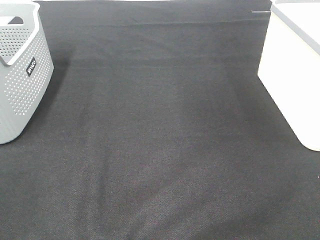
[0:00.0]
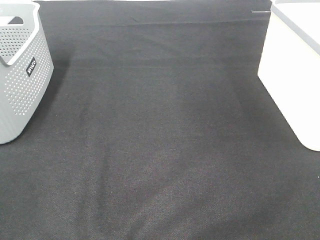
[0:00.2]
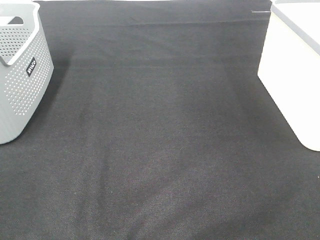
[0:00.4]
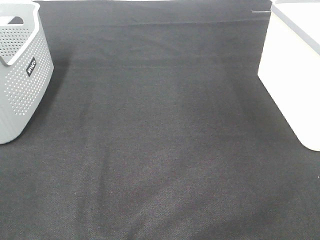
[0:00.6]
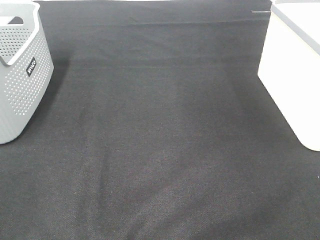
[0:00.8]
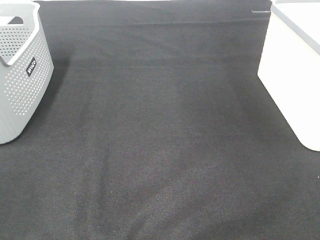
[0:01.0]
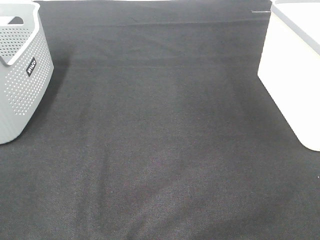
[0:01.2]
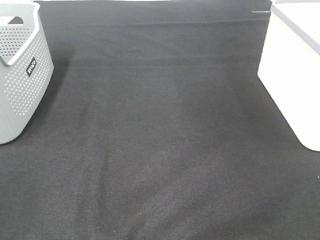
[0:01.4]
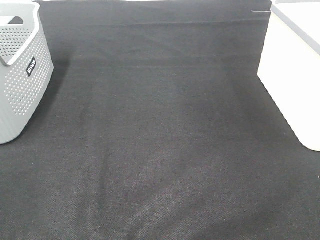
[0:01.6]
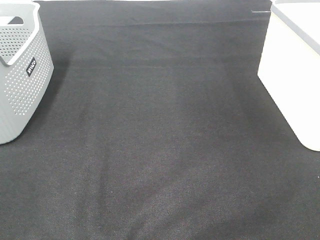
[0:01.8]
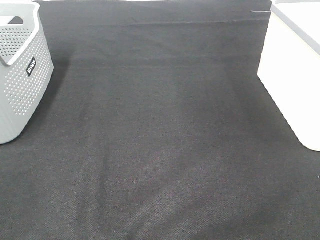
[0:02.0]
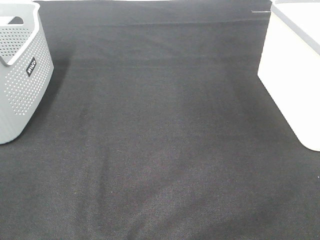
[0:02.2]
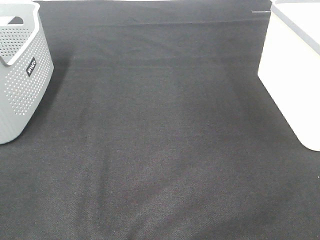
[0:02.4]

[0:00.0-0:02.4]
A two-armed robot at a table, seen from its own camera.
0:01.2 to 0:02.4: Both grippers stay about where they are.

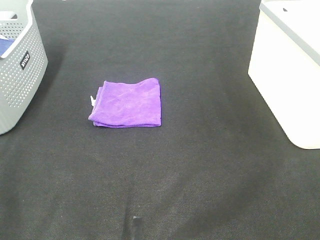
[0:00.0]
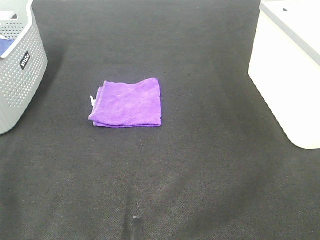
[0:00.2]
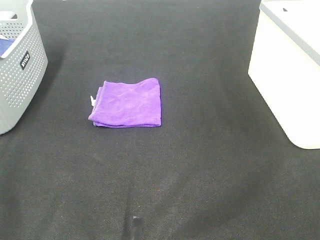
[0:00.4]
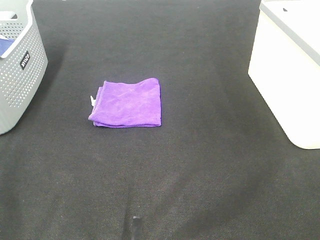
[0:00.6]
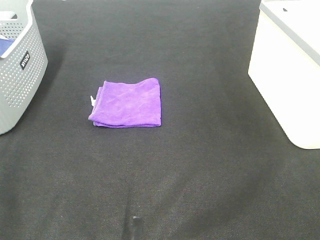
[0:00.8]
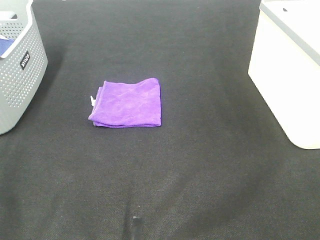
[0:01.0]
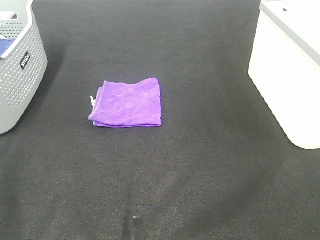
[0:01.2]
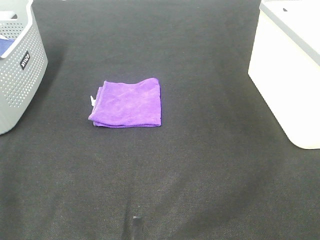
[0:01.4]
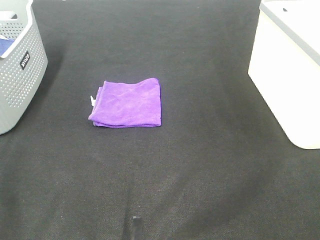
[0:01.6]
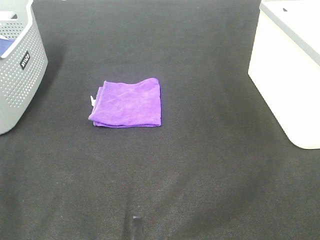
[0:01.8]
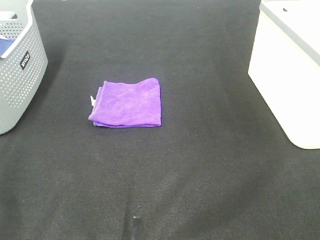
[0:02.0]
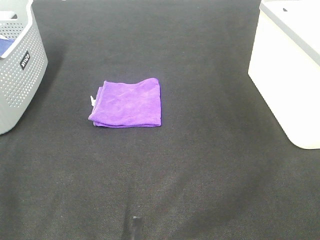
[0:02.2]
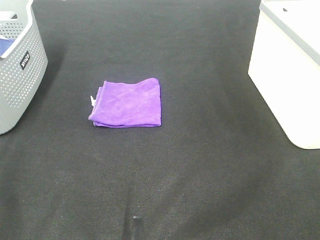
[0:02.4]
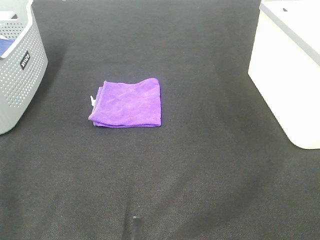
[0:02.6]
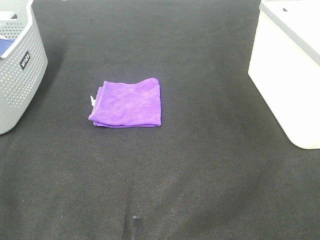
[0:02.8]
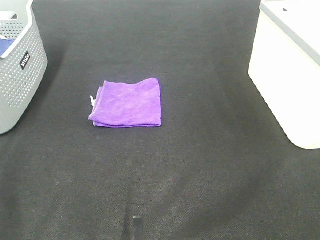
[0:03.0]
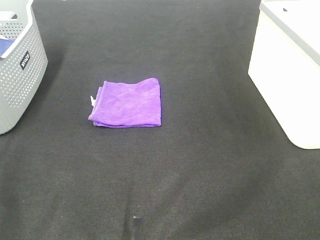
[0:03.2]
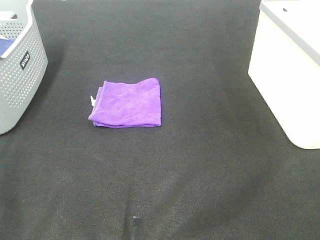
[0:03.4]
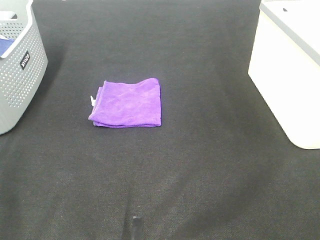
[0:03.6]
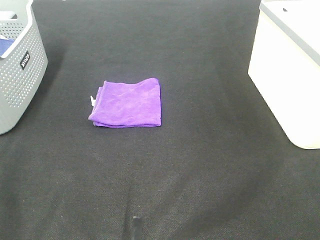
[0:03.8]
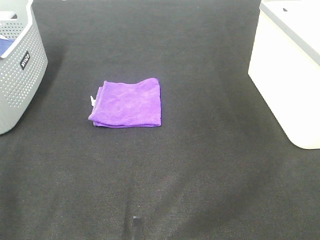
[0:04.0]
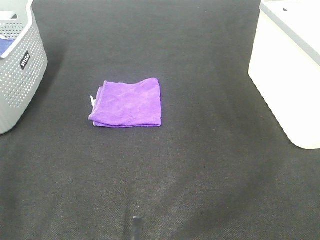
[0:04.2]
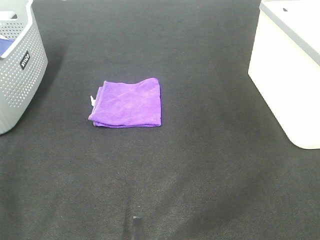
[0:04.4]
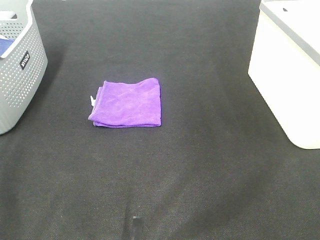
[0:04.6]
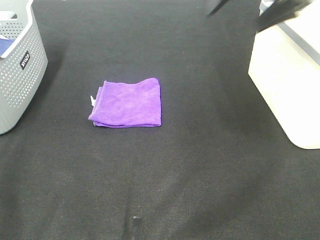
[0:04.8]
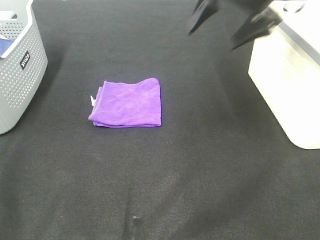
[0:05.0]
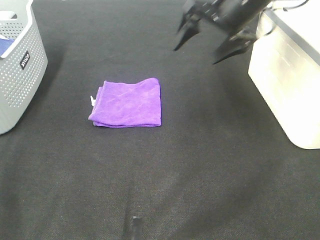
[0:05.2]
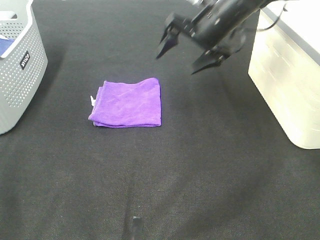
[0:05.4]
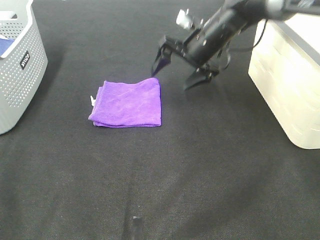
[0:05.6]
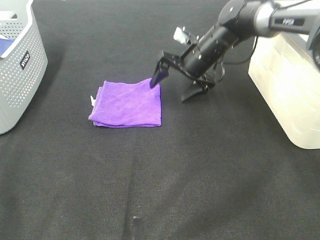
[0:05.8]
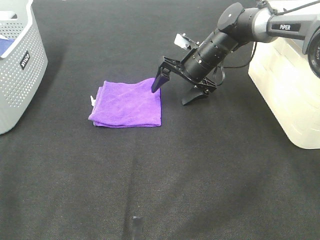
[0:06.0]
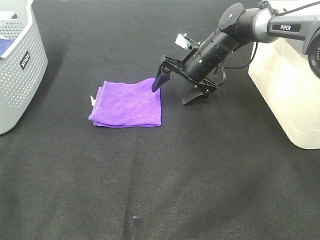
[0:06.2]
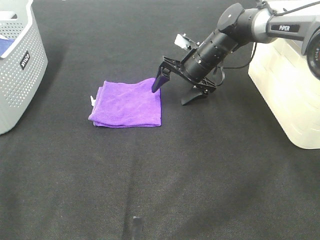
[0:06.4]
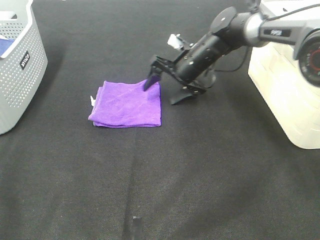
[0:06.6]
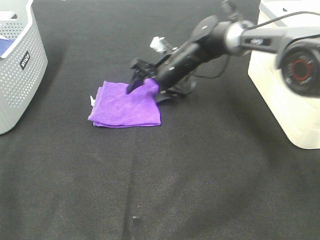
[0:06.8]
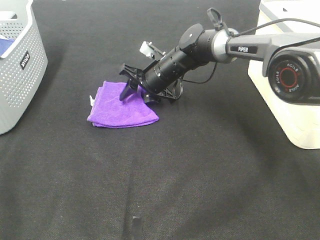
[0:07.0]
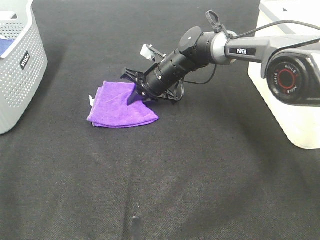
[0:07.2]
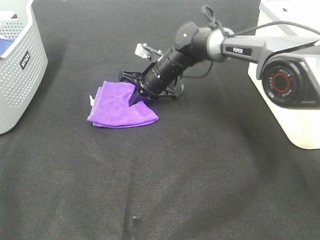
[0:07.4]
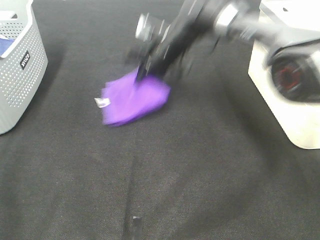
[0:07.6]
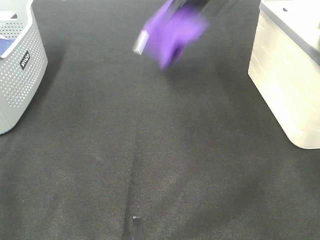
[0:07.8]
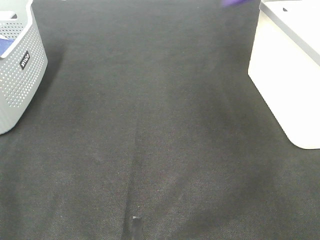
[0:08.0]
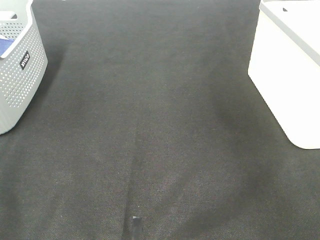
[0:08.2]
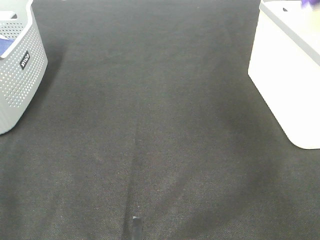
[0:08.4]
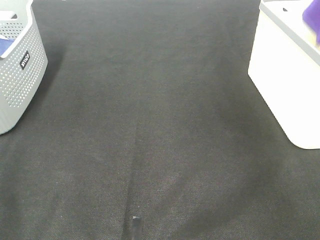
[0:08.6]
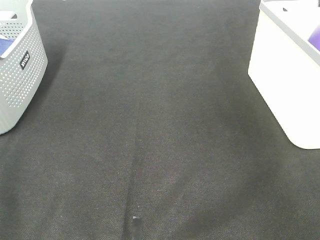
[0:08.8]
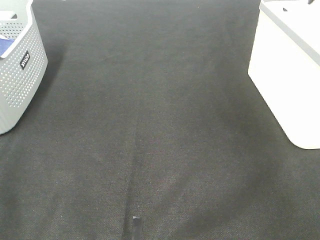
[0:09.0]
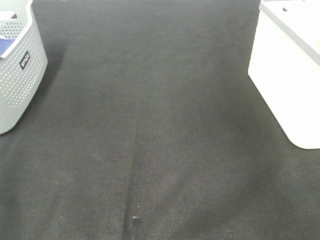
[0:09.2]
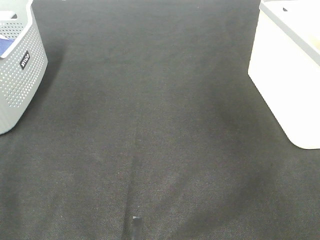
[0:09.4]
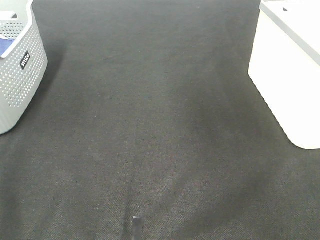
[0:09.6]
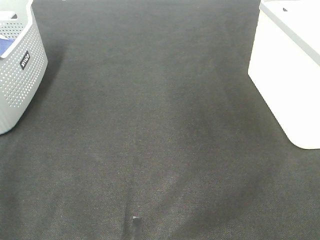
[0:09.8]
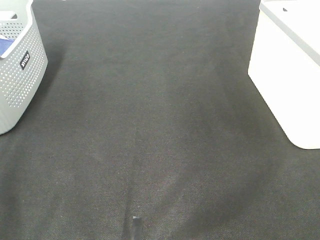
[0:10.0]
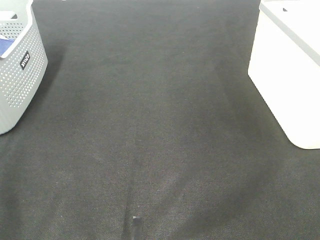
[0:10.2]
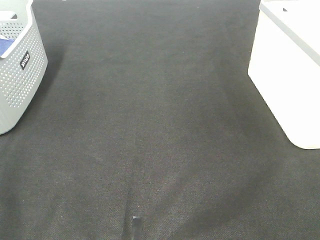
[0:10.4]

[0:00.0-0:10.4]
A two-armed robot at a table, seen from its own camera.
Step, 0:00.0 to 0:07.2: Right hand: grab the folded purple towel.
Step, 0:07.4 to 0:08.8: Right hand: place the purple towel in right basket.
0:00.0 to 0:03.0: The two grippers keep their place.
0:04.4 to 0:06.0: The right gripper shifts about 40 cm downward, forward and to the left.
0:06.0 to 0:07.4: The right gripper goes approximately 10 cm to the left, and closes.
0:07.4 to 0:09.0: The right gripper moves to the right and upward, about 40 cm, and opens up.

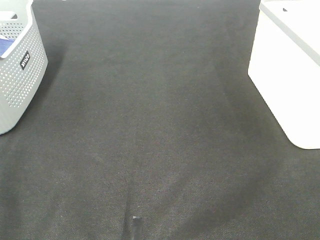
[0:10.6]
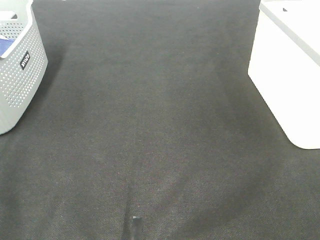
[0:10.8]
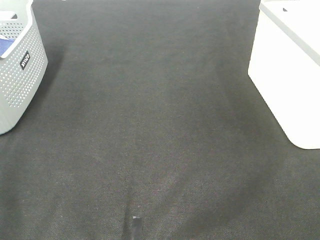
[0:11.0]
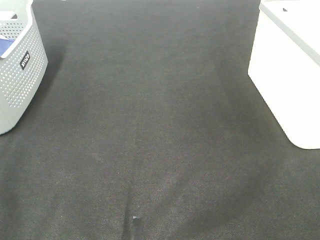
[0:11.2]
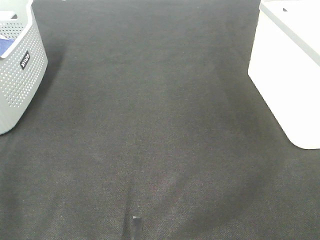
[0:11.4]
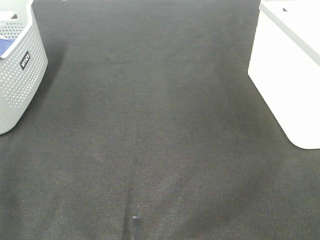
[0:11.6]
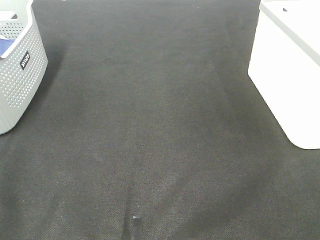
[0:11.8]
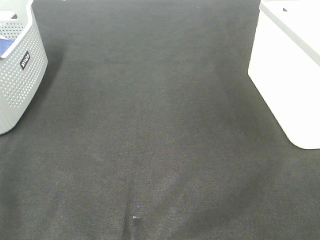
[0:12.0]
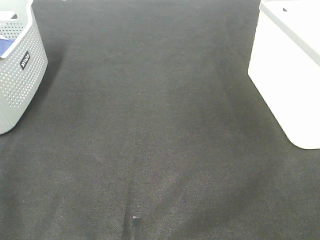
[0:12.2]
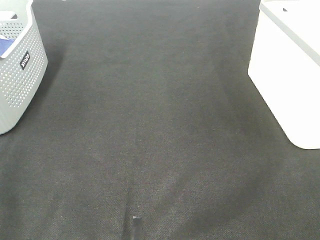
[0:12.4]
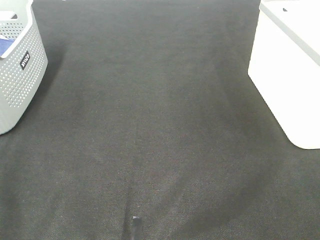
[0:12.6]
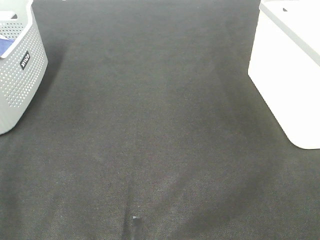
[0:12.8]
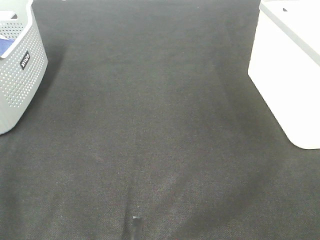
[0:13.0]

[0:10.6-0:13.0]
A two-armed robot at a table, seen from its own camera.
0:11.8 to 0:13.0: Both grippers stay about where they are.

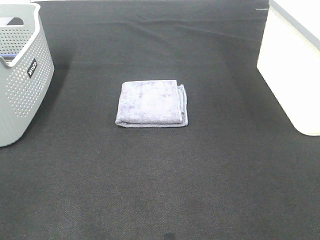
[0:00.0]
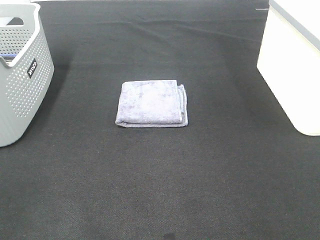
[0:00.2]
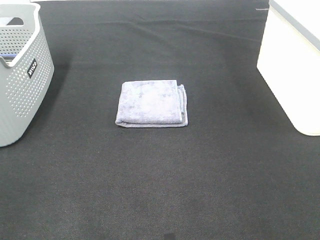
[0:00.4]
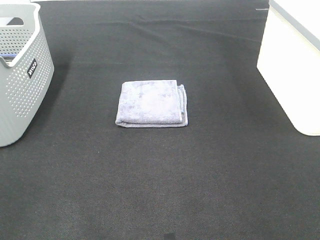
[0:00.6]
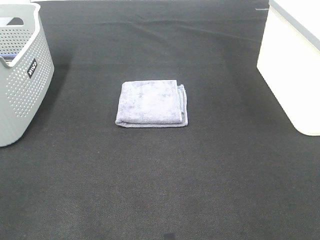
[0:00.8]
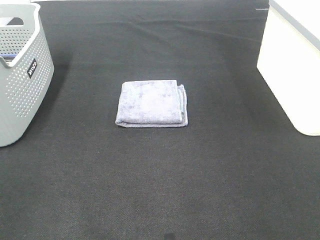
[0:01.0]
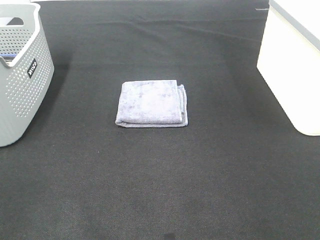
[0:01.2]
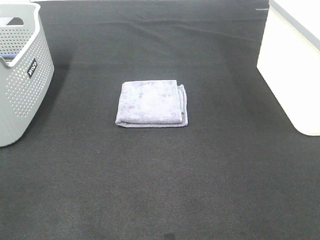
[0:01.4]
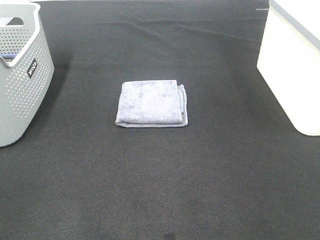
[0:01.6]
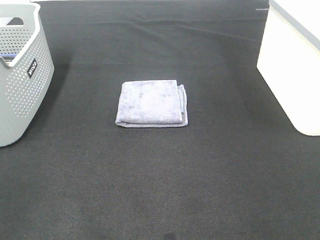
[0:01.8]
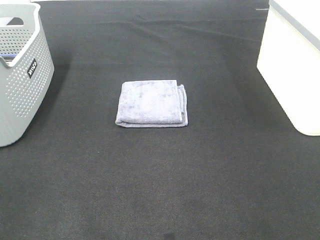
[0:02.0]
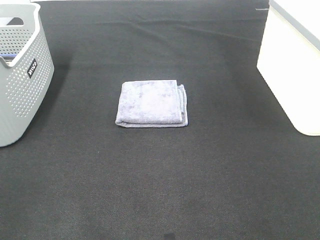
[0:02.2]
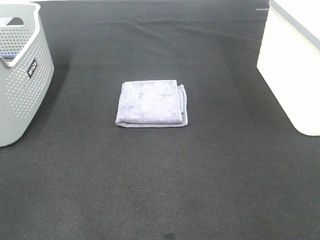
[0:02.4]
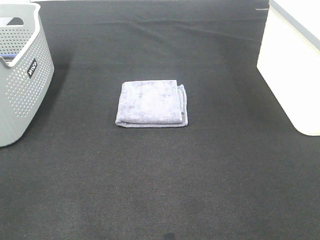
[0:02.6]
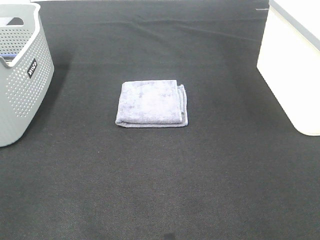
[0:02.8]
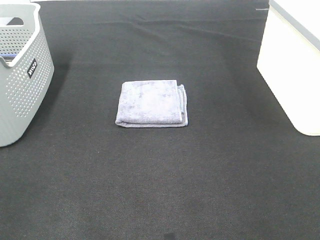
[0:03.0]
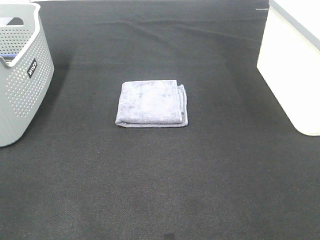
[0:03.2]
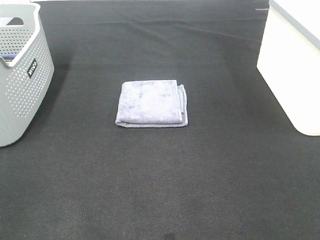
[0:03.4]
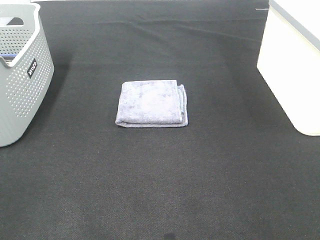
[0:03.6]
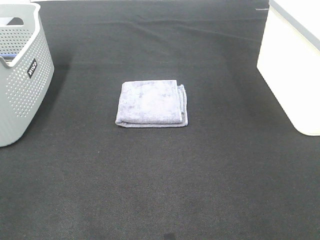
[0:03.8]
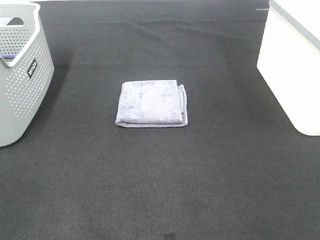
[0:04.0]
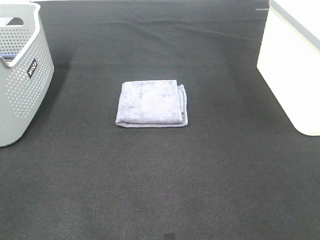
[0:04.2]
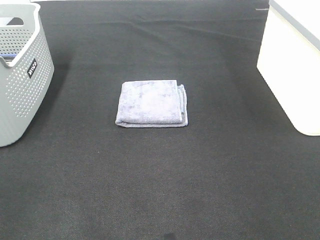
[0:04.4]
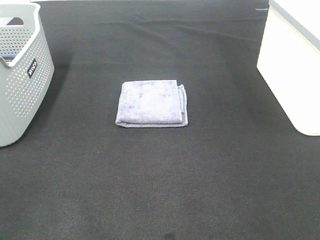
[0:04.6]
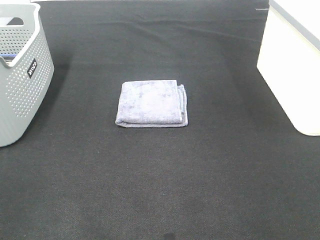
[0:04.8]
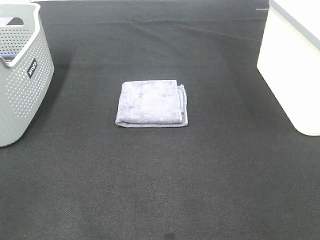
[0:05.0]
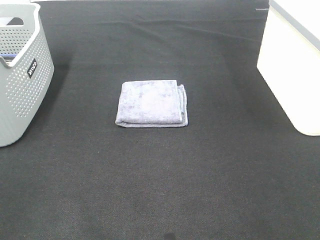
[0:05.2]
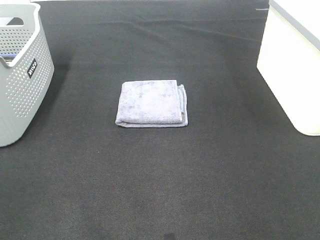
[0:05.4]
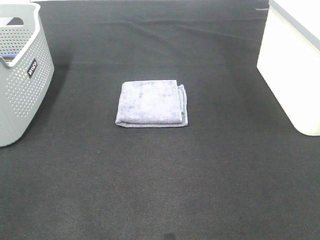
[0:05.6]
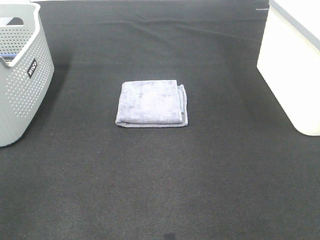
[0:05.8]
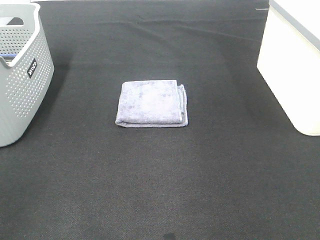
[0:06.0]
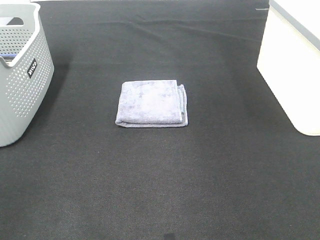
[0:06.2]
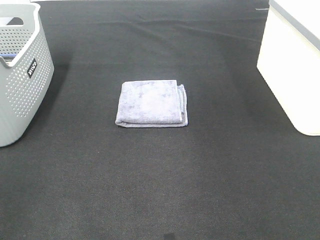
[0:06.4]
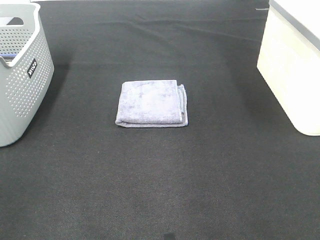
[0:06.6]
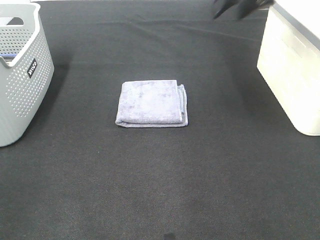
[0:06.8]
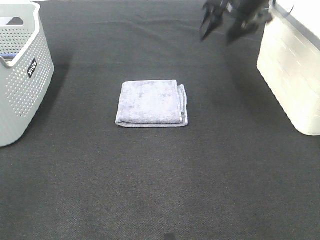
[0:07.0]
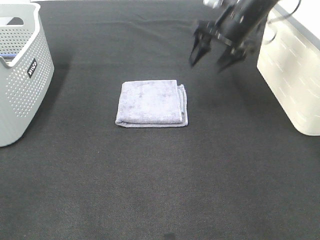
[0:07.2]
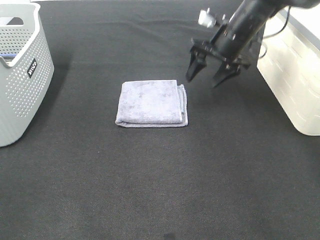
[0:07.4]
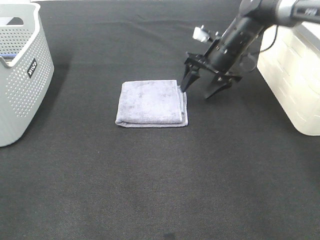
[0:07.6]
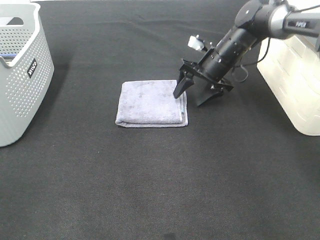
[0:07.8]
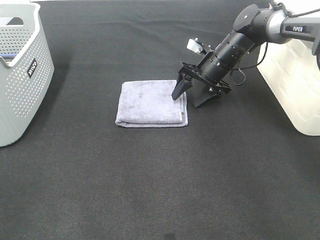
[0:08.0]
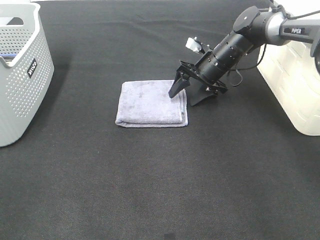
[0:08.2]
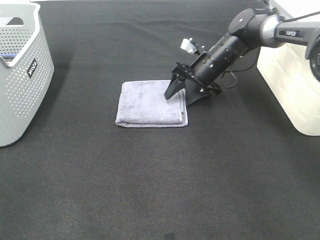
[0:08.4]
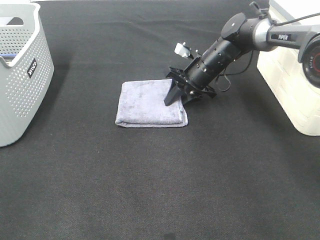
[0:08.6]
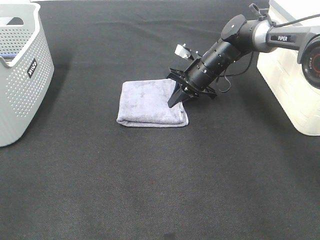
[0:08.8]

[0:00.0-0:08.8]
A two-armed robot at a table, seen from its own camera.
0:00.0 to 0:04.4: The two grippers keep their place.
0:05.8 to 0:07.4: The right gripper moves forward, downward and to the left, about 40 cm.
0:07.4 to 0:08.8: The right gripper heads downward, covering roughly 10 cm, and closes its fingers.
